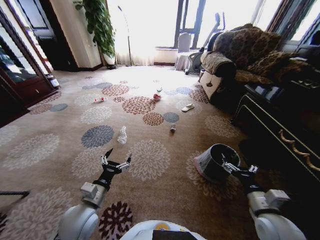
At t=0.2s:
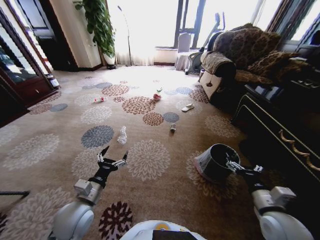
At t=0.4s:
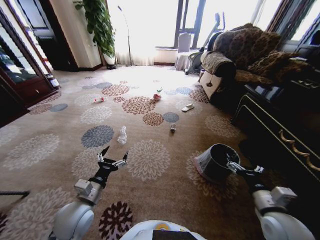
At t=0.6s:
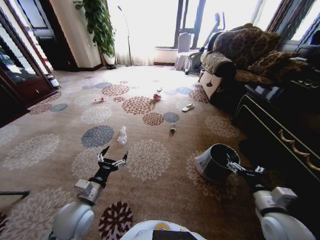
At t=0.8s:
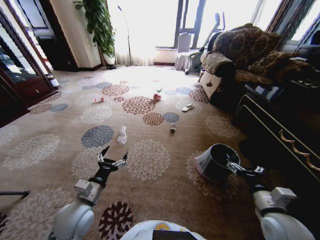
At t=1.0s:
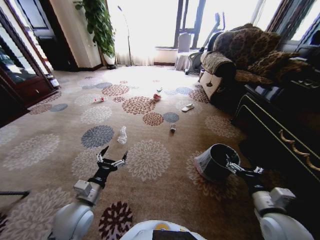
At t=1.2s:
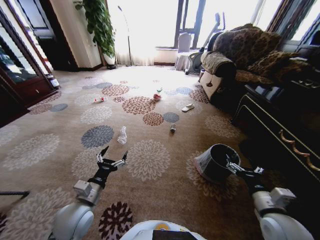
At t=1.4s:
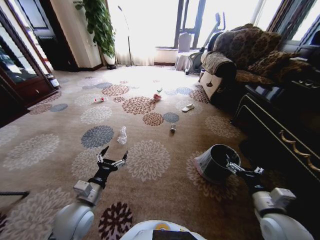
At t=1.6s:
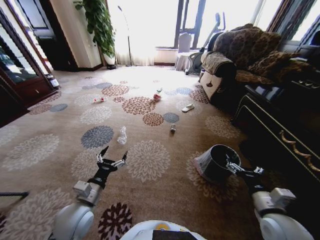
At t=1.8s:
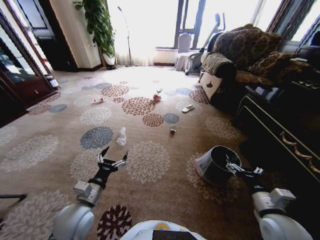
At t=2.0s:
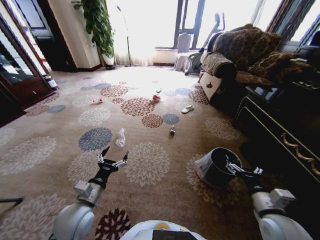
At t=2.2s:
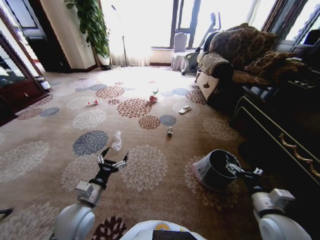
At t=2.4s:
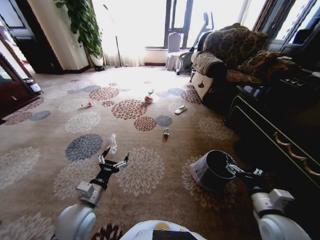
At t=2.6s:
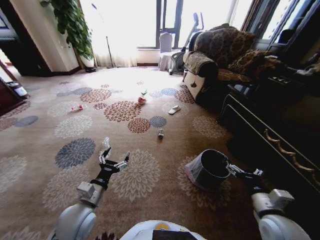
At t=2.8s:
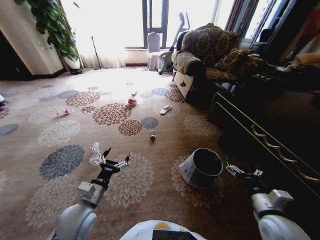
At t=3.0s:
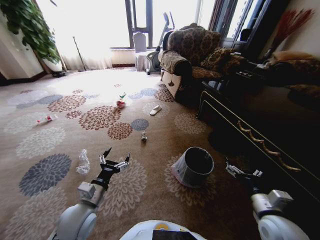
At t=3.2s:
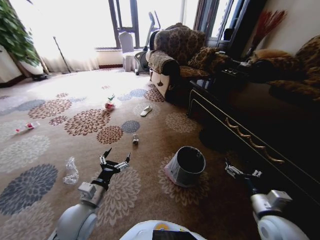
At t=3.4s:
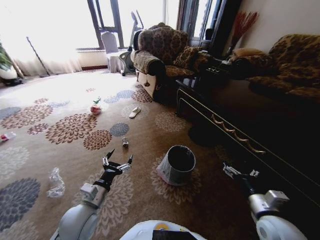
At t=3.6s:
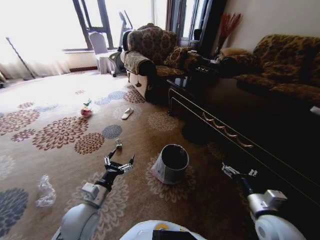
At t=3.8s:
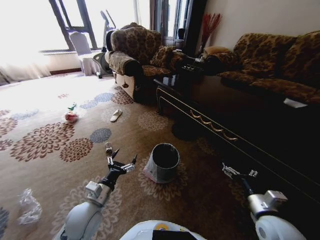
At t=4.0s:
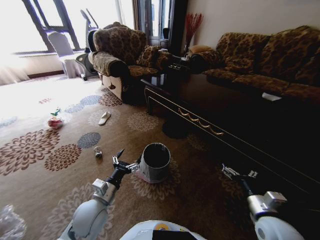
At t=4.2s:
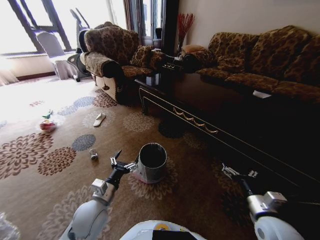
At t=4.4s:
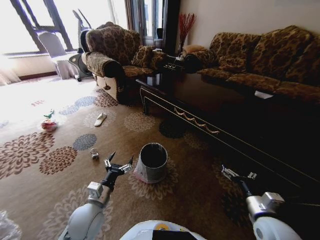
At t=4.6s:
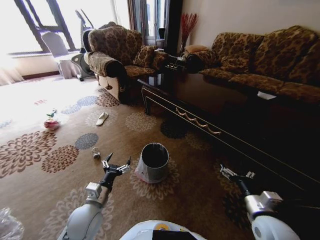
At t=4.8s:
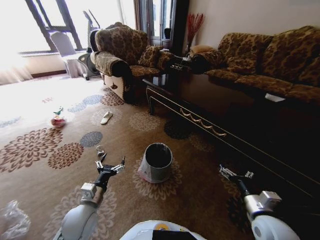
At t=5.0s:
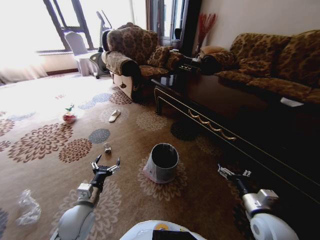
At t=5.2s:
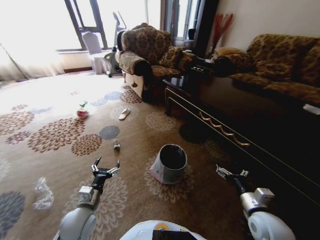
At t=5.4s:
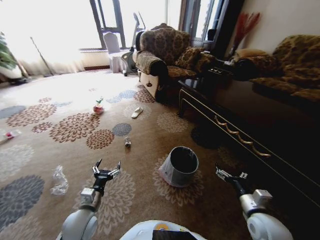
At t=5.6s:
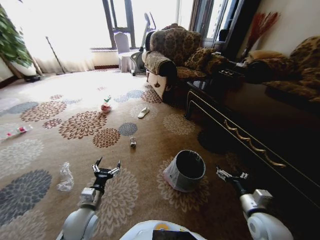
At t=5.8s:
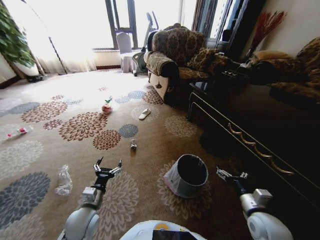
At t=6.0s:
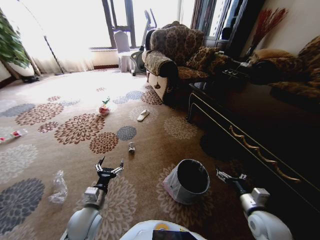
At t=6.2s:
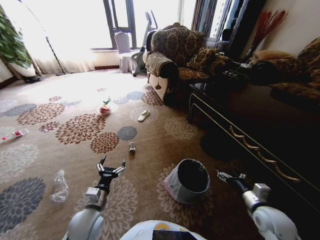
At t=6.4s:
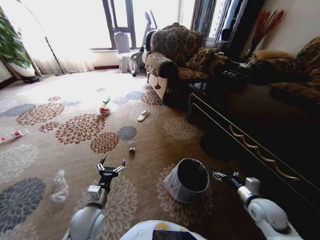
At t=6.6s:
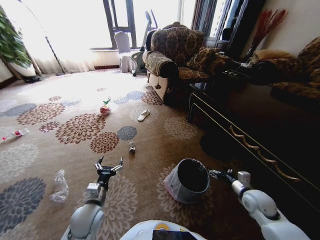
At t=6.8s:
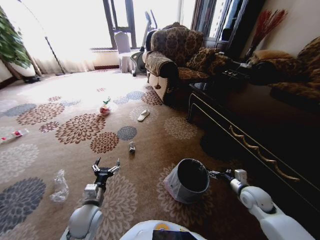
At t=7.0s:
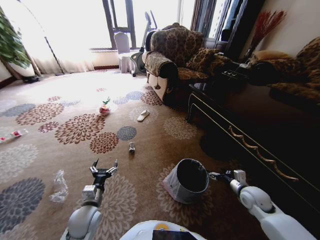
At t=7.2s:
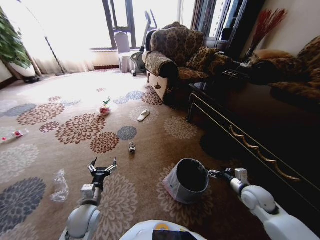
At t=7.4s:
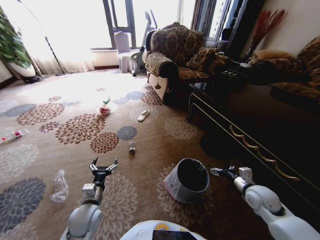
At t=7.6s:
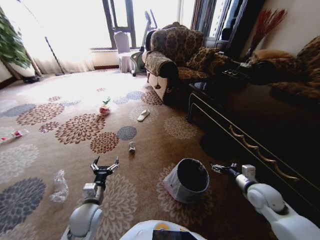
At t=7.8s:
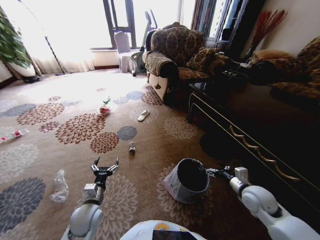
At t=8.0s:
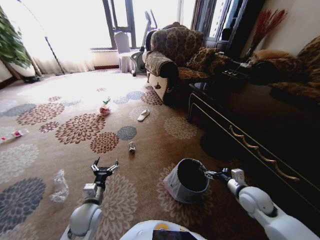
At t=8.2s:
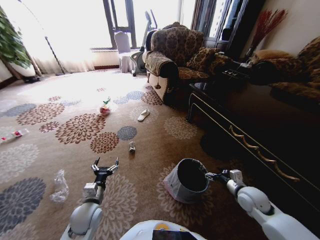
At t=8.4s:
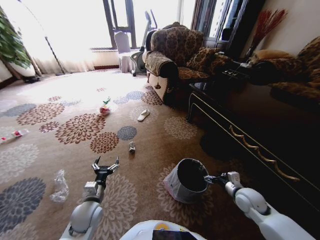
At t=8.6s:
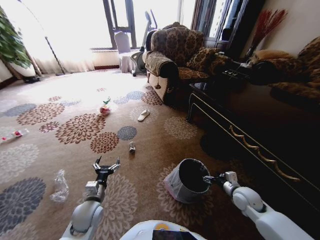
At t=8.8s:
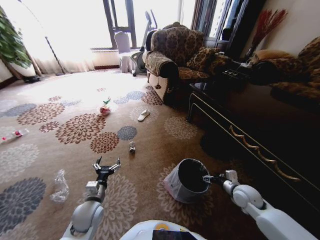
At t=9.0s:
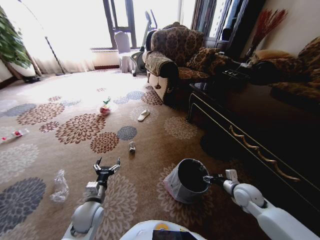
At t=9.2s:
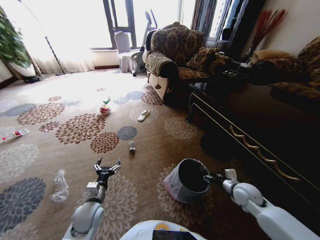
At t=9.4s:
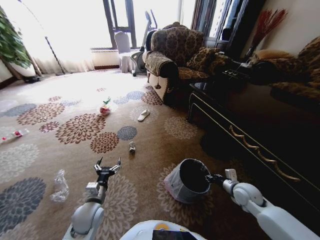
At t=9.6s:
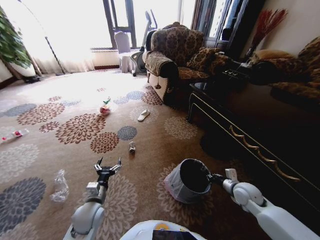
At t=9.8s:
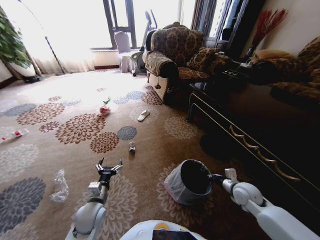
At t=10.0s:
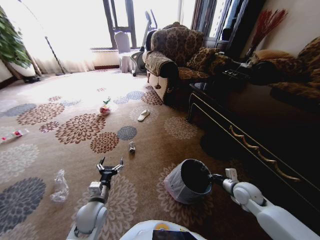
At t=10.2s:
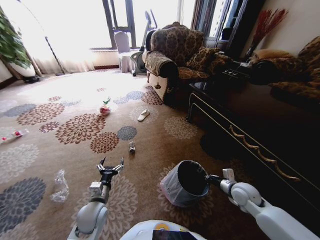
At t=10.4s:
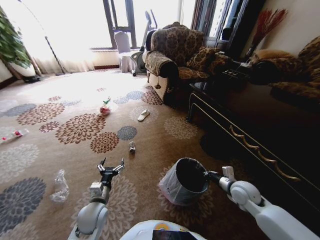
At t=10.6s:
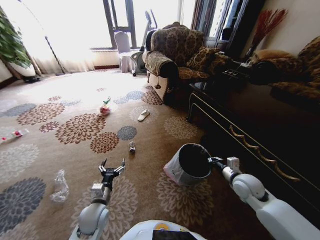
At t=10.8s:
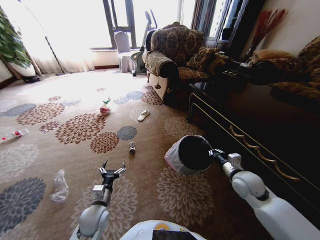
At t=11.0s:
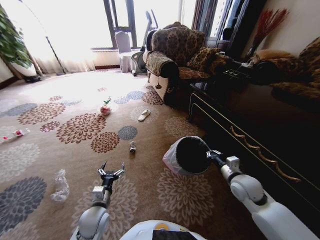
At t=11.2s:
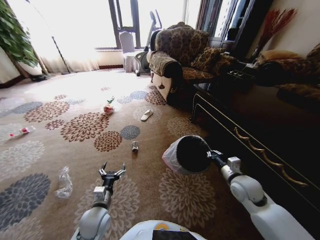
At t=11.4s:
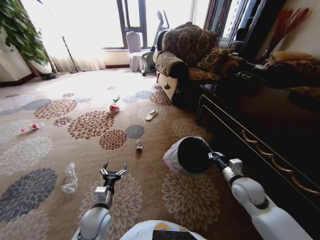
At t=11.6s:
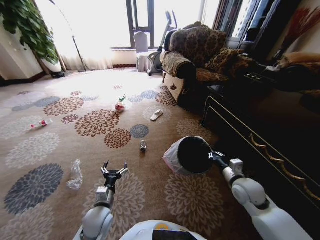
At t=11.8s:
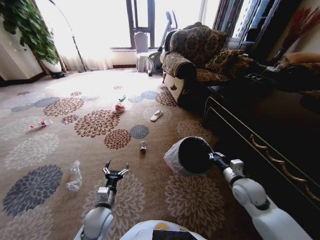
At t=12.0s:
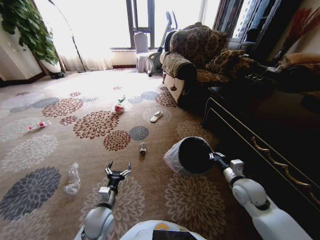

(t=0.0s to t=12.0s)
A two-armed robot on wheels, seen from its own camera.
Task of the whole recording: Pick up the trash from the ground and place it into the trash bin.
t=6.0s - t=7.6s: The right gripper moves forward, approximately 10 cm.
t=7.6s - t=9.0s: The right gripper goes roughly 5 cm downward.
t=9.0s - t=10.4s: The right gripper closes.

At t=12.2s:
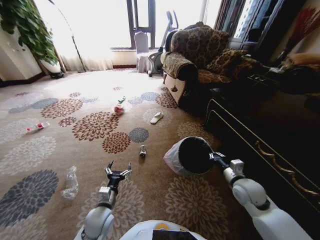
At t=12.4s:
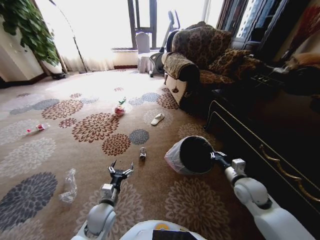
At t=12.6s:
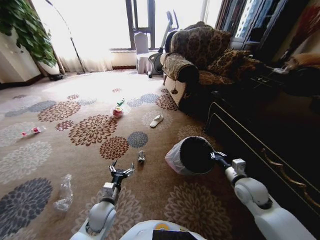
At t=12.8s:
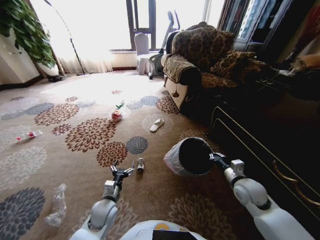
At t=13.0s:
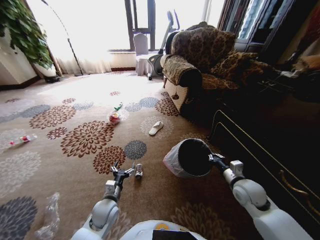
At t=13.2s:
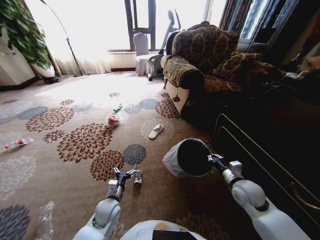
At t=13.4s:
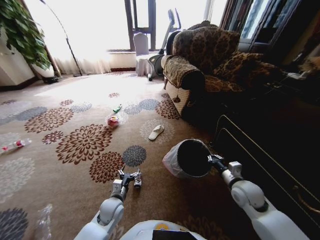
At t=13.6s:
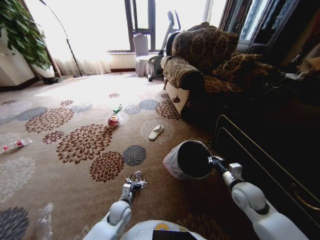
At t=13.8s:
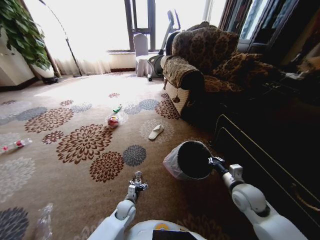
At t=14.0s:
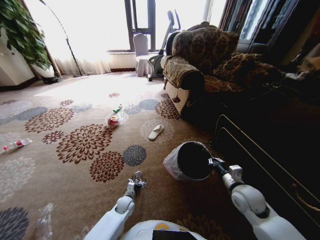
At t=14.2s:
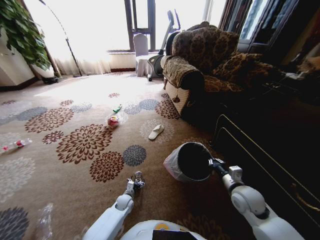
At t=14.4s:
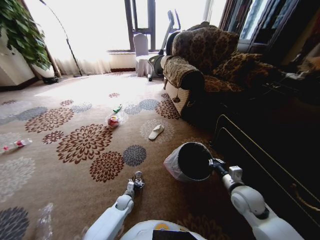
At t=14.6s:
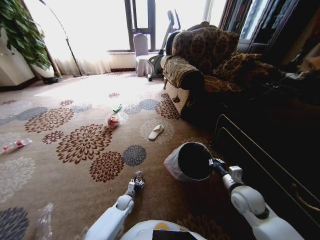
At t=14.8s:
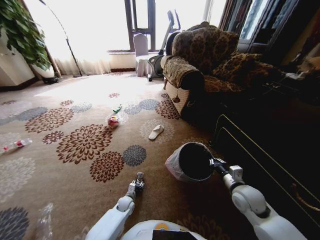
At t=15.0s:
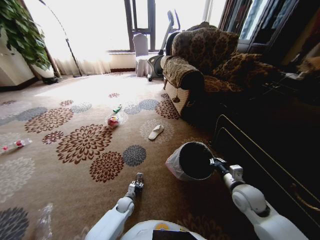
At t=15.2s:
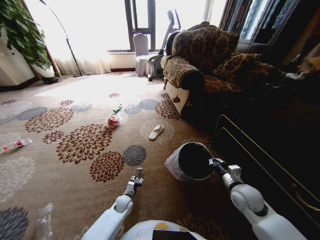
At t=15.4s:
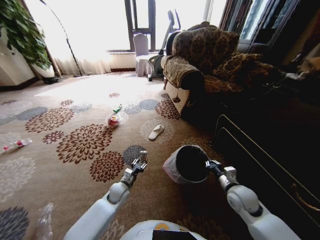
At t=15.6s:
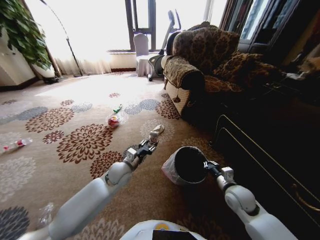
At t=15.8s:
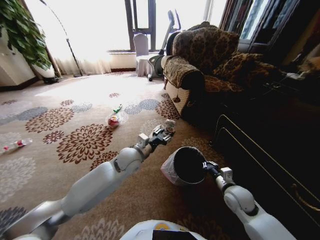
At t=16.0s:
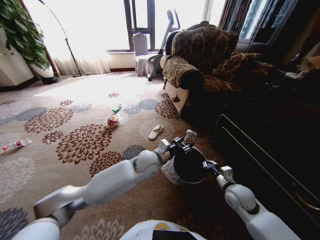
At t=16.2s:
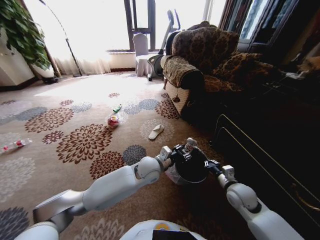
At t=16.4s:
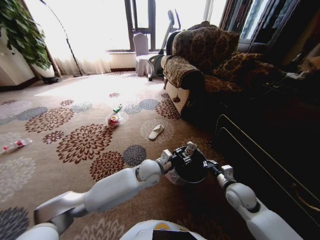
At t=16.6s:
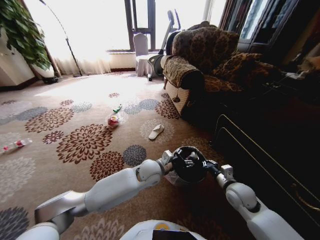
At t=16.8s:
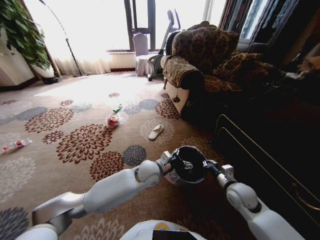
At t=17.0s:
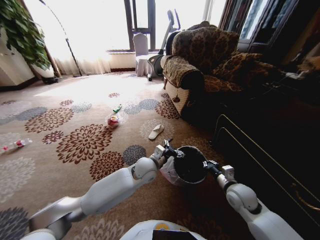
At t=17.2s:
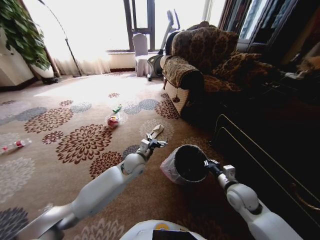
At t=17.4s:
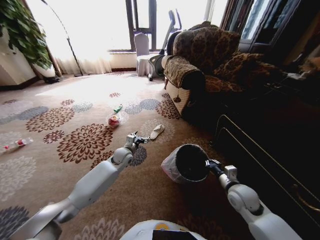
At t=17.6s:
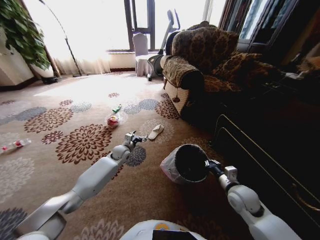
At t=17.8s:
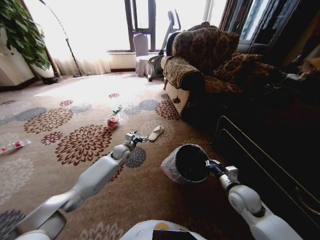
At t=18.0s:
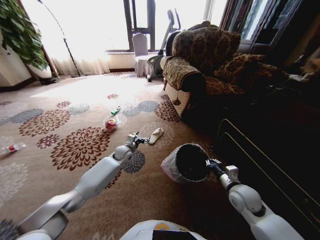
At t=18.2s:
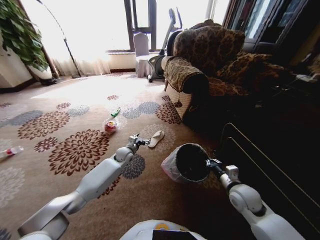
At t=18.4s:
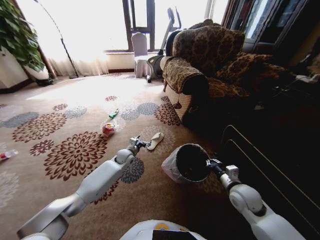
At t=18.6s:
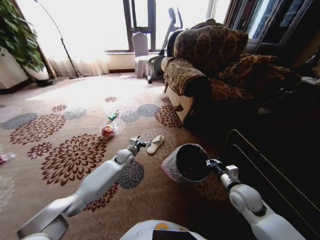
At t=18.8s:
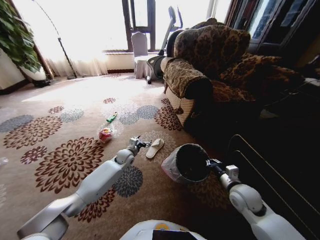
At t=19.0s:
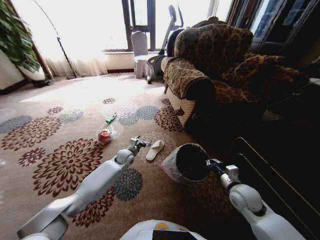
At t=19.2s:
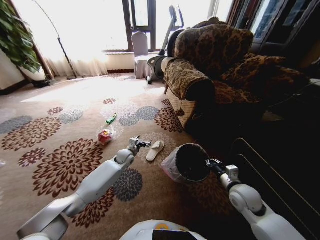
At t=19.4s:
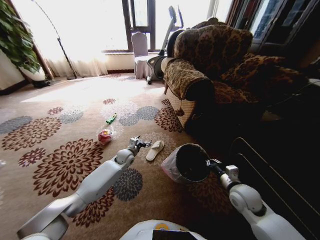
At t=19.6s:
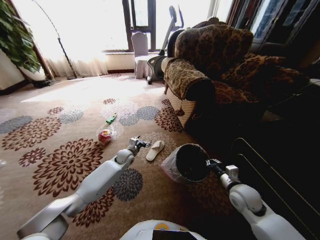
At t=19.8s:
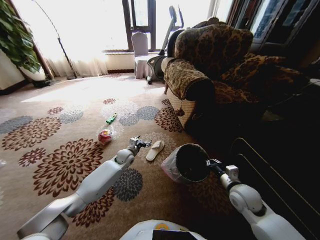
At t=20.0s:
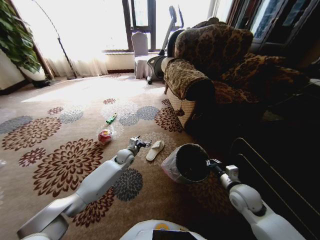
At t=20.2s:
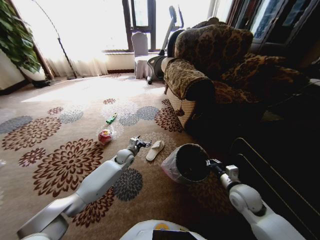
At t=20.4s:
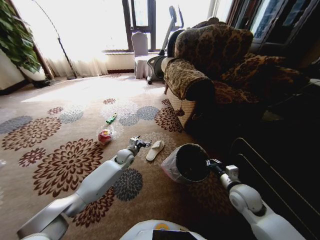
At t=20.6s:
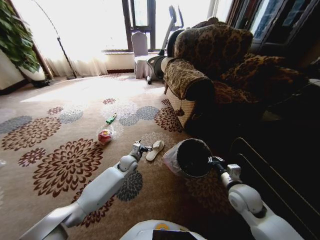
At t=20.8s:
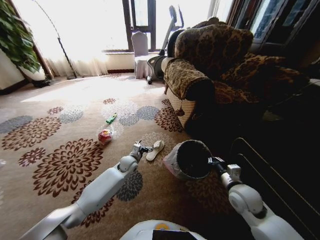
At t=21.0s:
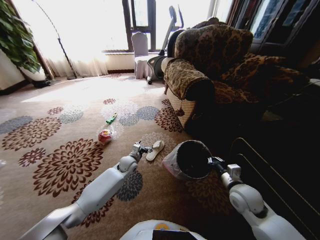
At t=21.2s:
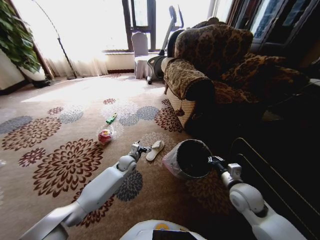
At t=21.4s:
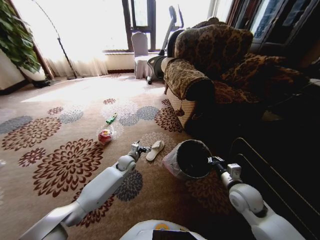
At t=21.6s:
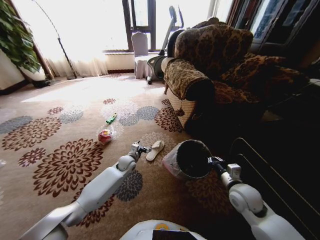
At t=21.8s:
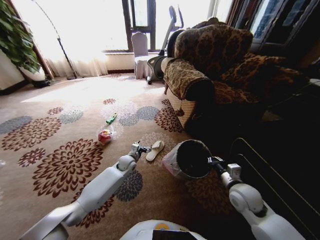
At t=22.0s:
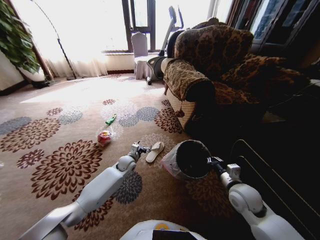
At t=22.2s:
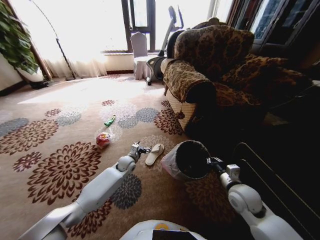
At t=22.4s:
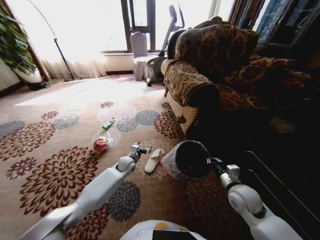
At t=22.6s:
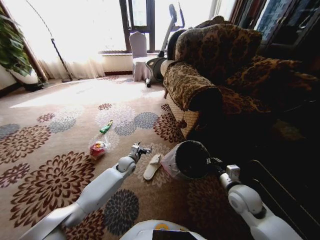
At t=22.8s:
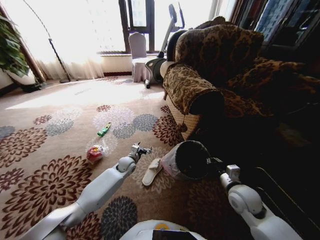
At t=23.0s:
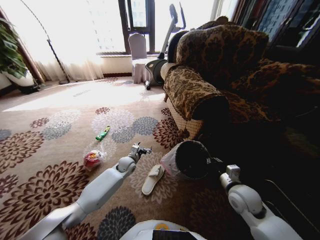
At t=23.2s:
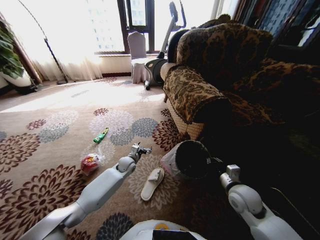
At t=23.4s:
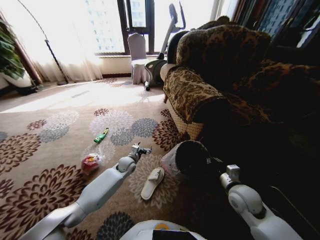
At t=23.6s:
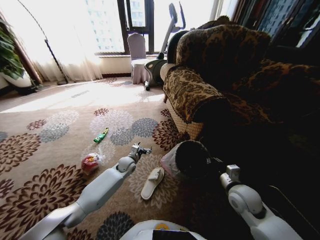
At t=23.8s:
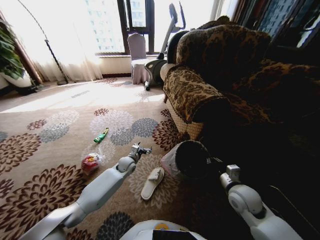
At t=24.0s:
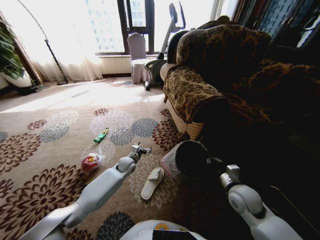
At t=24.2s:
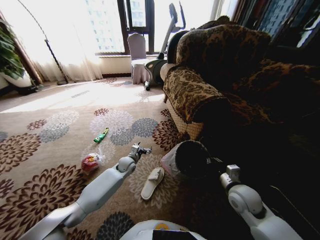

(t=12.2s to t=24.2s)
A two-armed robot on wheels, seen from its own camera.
Task of the whole recording: Pick up the trash from the ground and place it into the trash bin.
t=12.2s - t=13.8s: The left gripper moves downward, roughly 15 cm.
t=13.8s - t=15.2s: The left gripper shifts by roughly 5 cm, and closes its fingers.
t=15.2s - t=16.6s: The left gripper moves upward and to the right, approximately 30 cm.
t=16.6s - t=18.2s: The left gripper is displaced to the left, forward and downward by about 20 cm, and opens up.
t=19.8s - t=21.2s: The grippers stay close to where they were, moving slightly.
